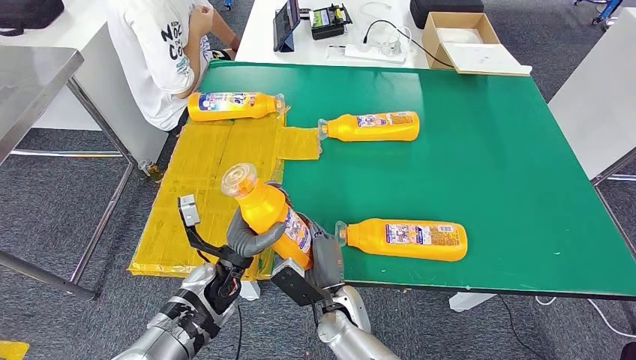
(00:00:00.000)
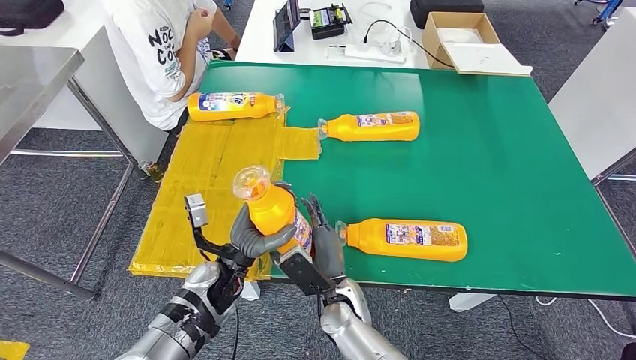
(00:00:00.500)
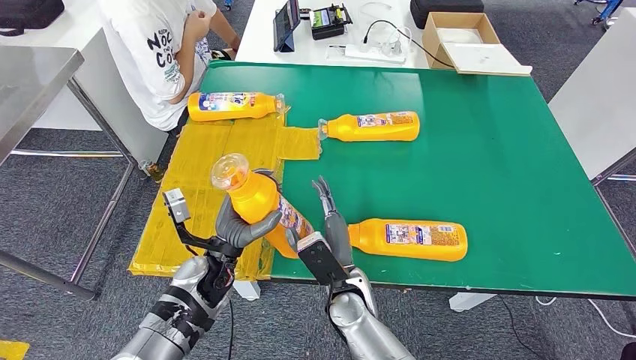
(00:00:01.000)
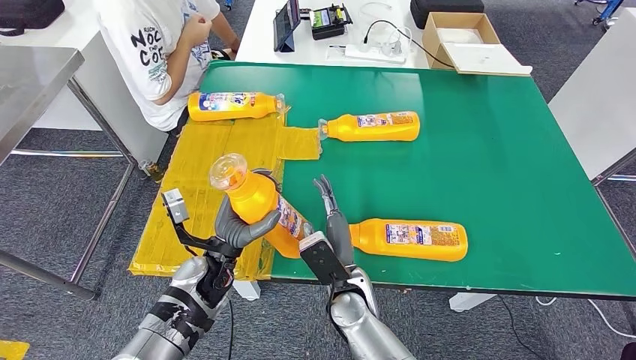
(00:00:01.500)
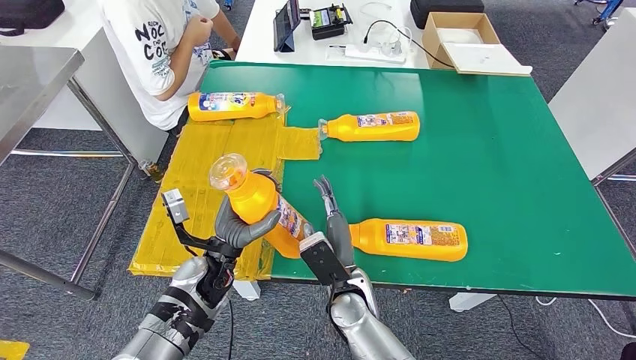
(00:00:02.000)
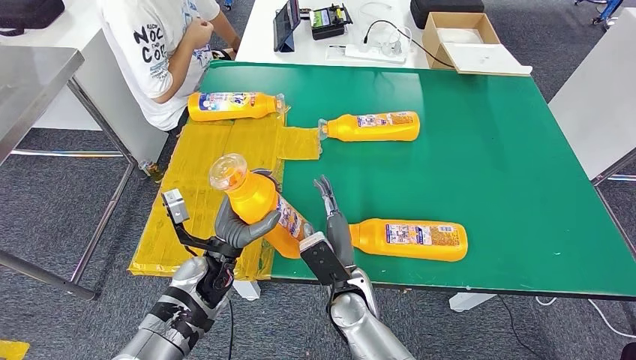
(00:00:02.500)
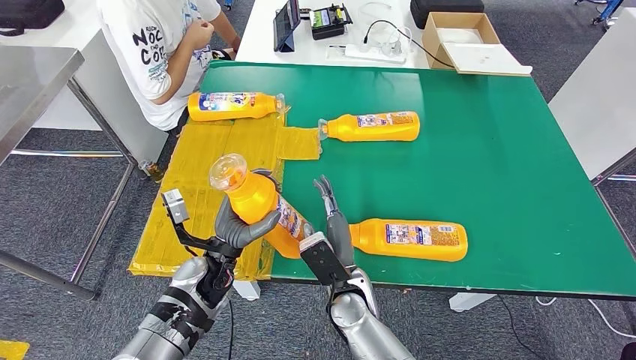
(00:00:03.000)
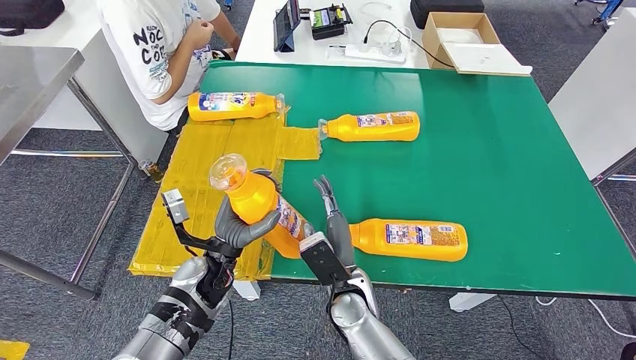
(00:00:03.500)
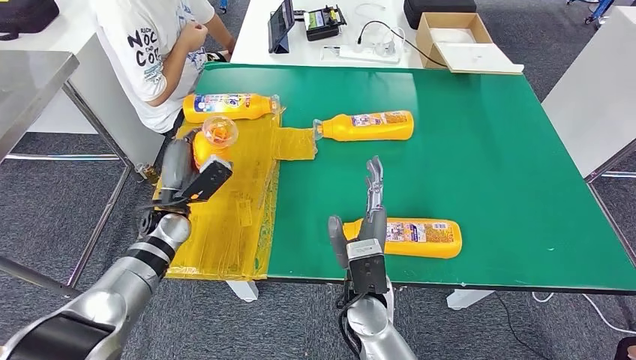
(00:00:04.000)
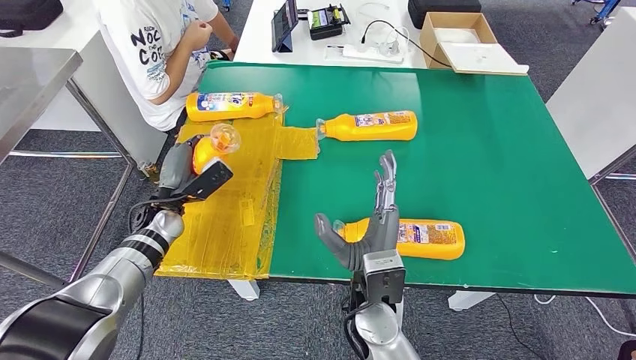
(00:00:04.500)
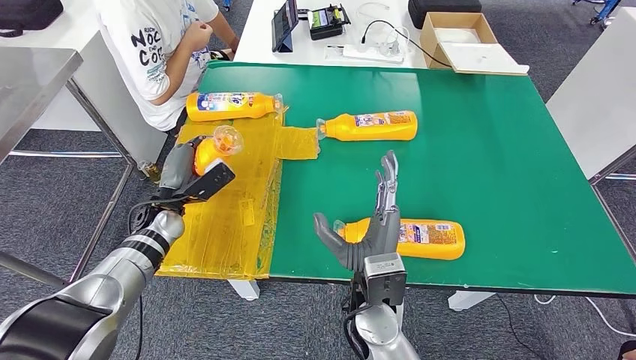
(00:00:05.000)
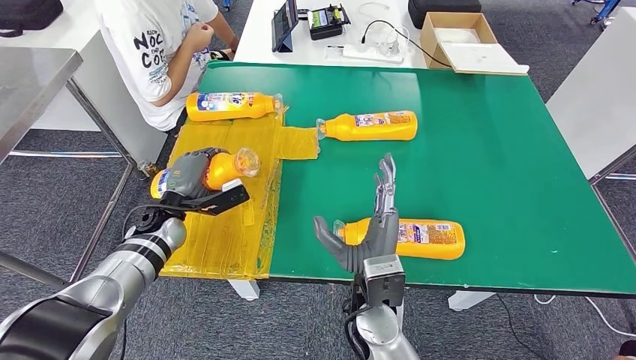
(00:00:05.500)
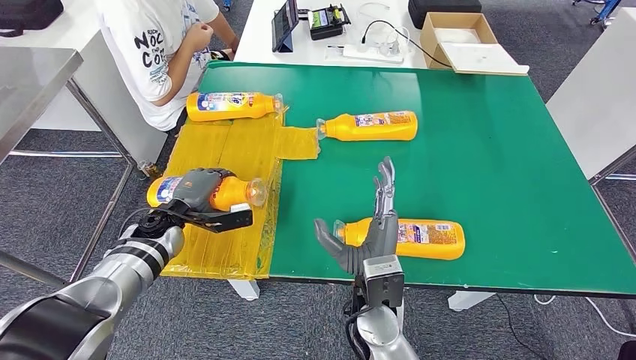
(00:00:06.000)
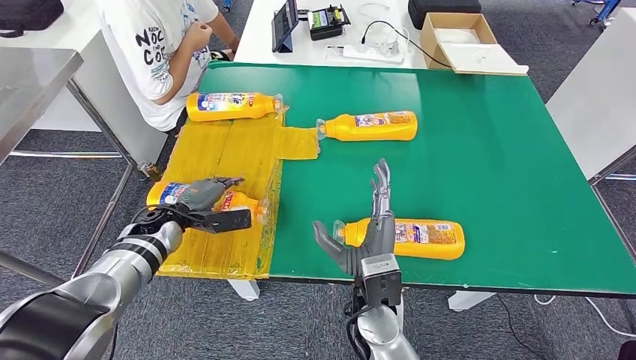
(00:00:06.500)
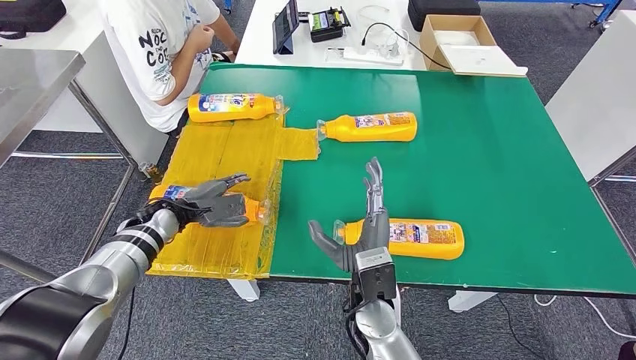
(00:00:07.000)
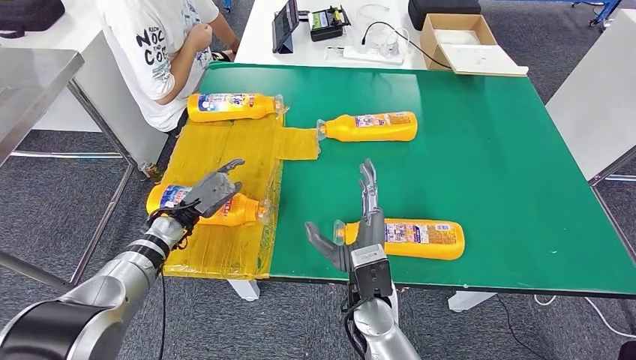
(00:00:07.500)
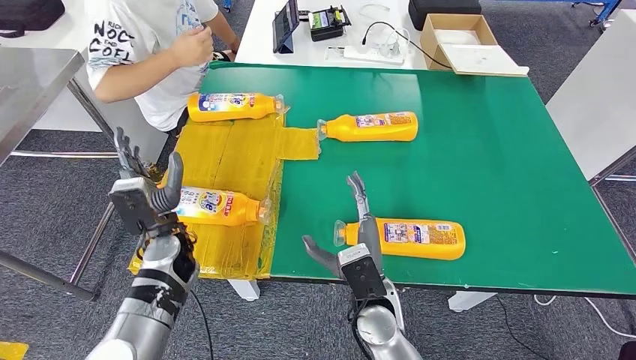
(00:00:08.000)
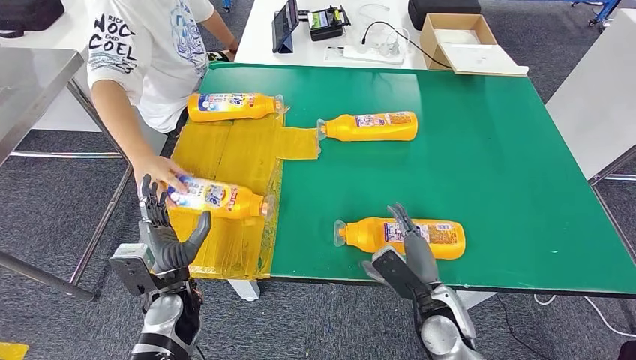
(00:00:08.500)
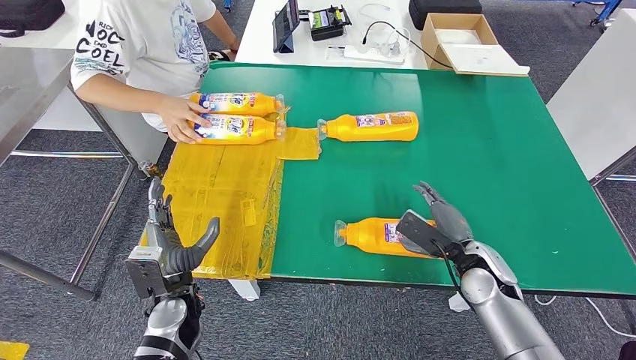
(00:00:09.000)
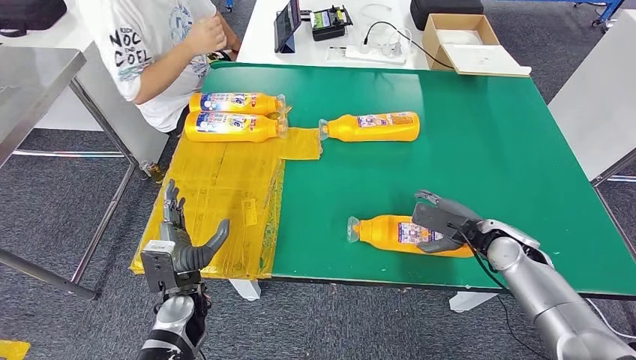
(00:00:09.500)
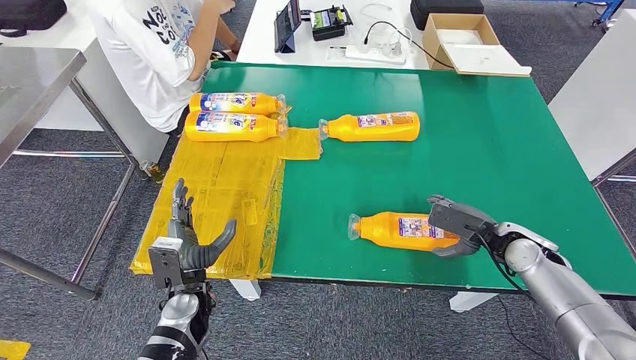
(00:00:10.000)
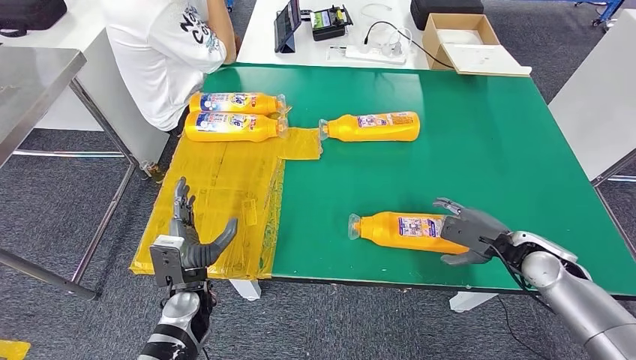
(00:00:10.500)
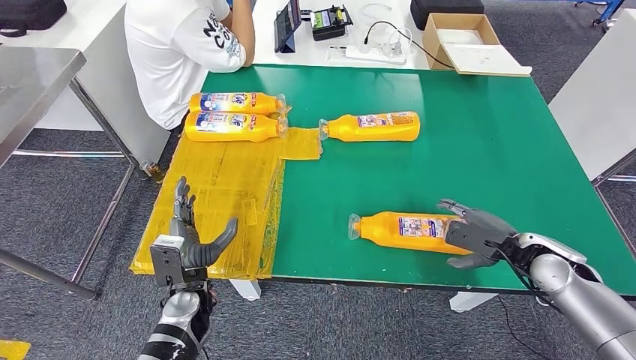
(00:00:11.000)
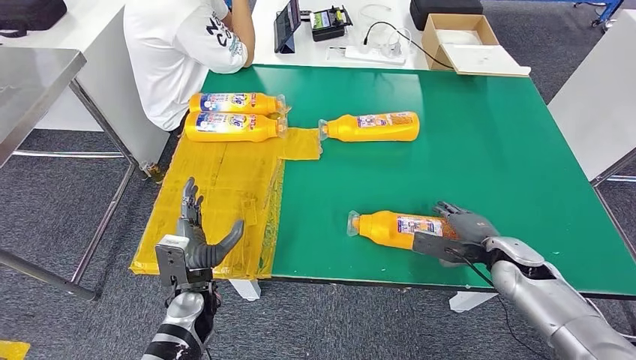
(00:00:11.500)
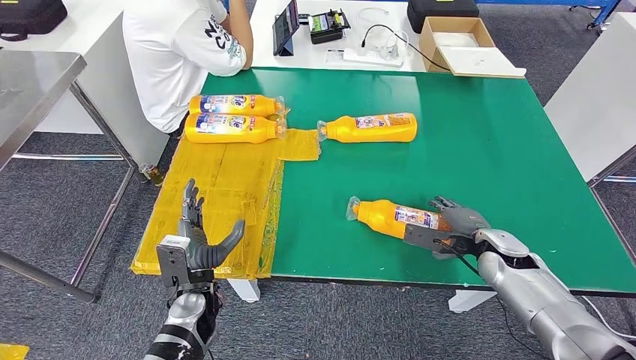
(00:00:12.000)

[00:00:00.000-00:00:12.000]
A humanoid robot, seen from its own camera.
Step, 00:00:00.000 to 00:00:07.500: Flip the fast-moving consumer goods bottle to the front side.
00:00:00.000 to 00:00:02.000: The right hand shifts by some 5 cm.
00:00:06.000 to 00:00:08.000: The left hand goes approximately 10 cm to the right and backward.

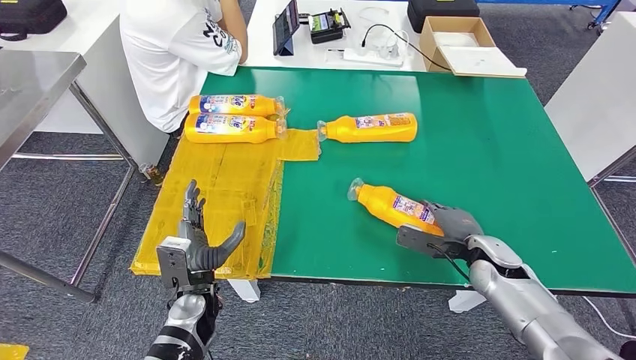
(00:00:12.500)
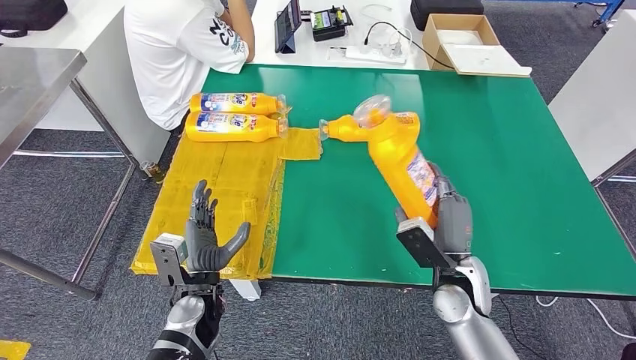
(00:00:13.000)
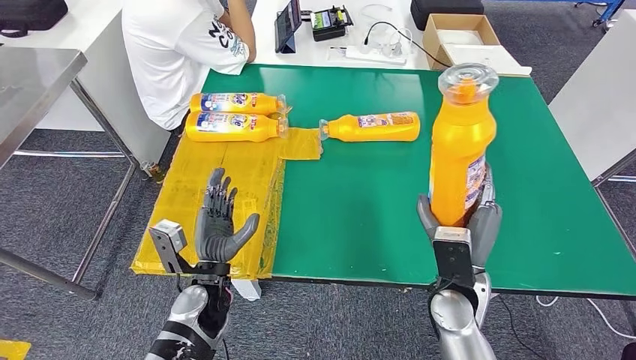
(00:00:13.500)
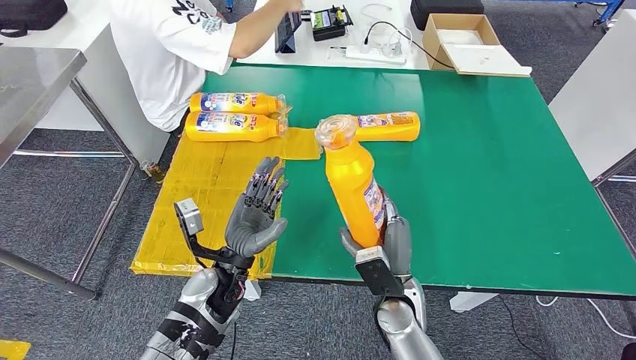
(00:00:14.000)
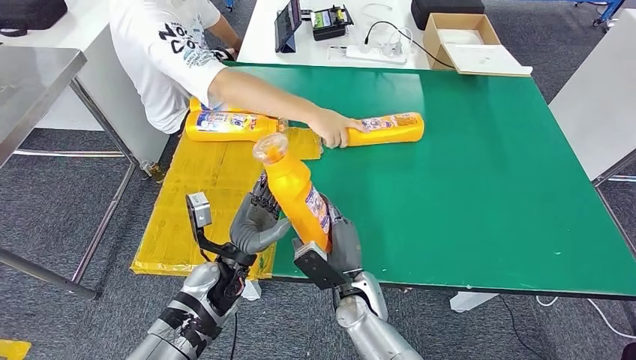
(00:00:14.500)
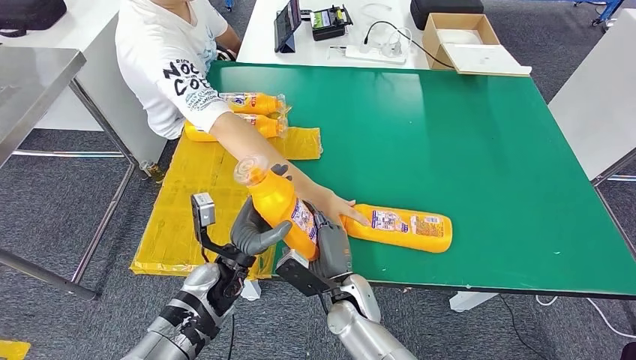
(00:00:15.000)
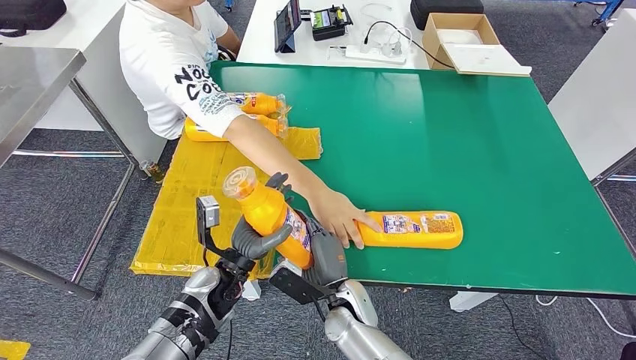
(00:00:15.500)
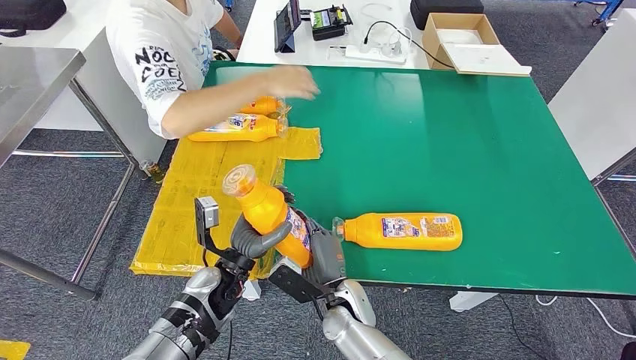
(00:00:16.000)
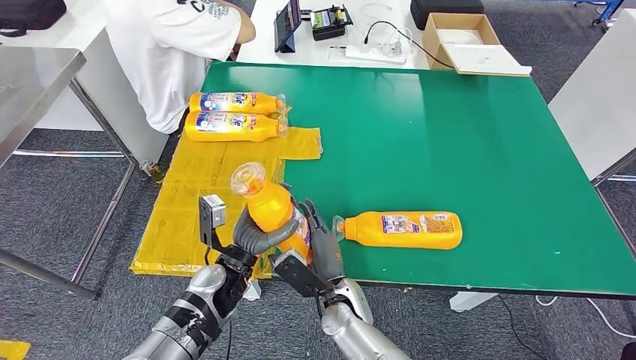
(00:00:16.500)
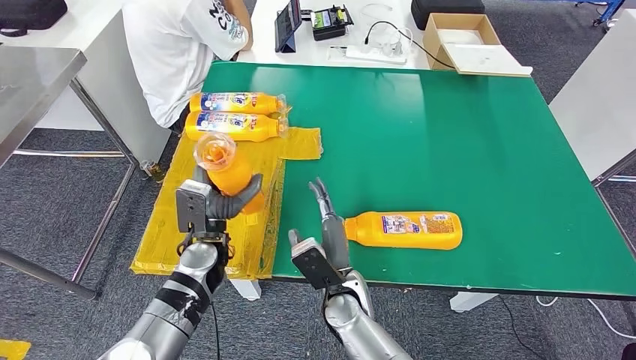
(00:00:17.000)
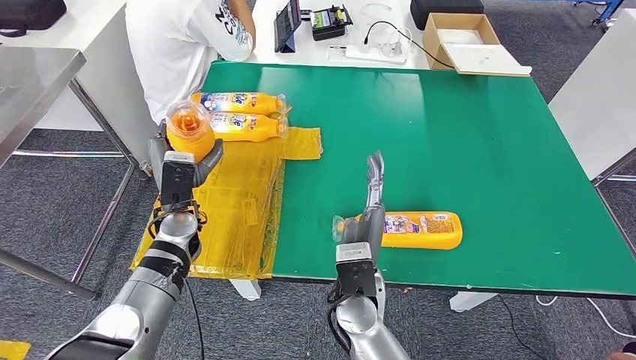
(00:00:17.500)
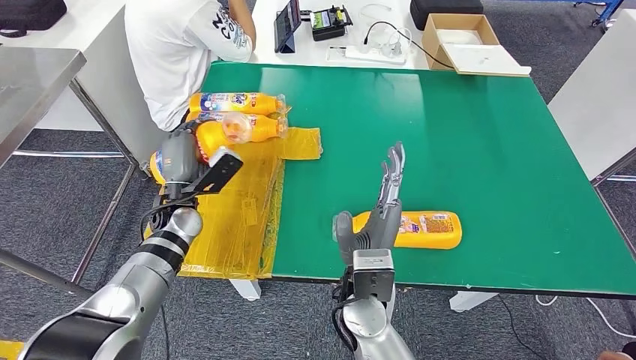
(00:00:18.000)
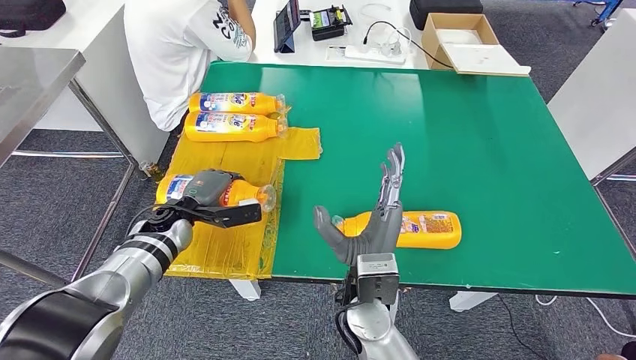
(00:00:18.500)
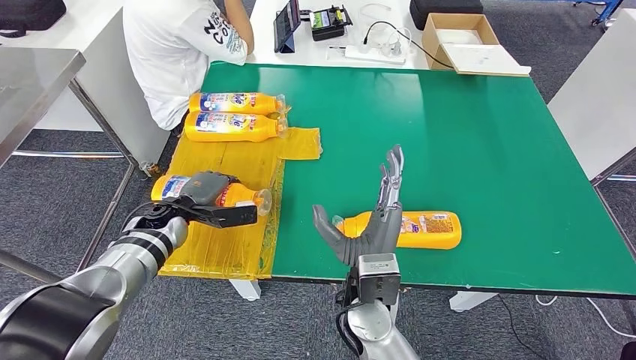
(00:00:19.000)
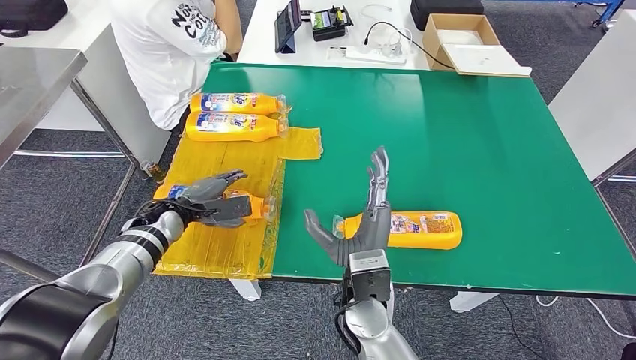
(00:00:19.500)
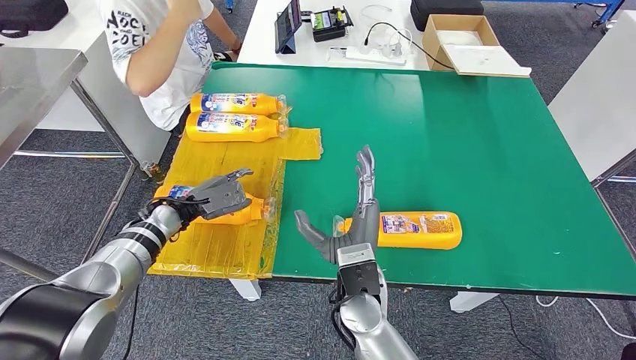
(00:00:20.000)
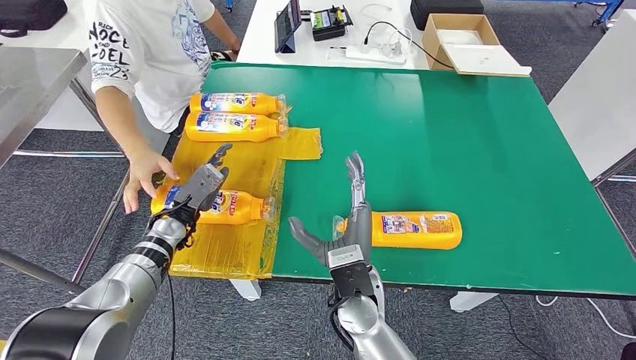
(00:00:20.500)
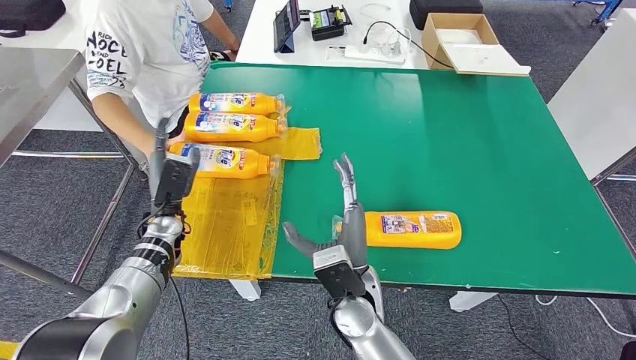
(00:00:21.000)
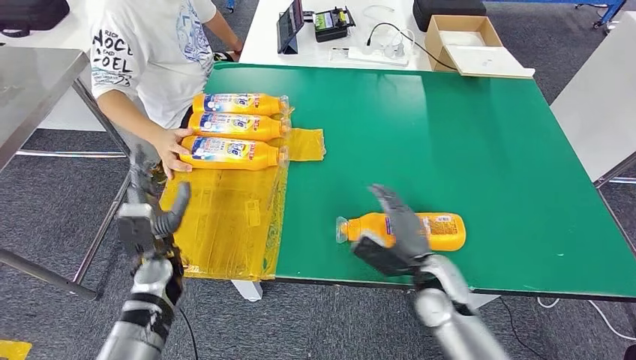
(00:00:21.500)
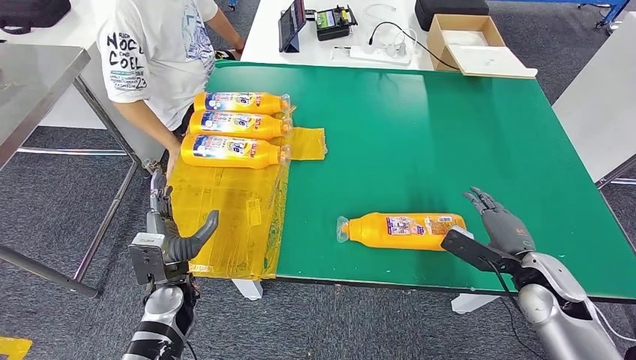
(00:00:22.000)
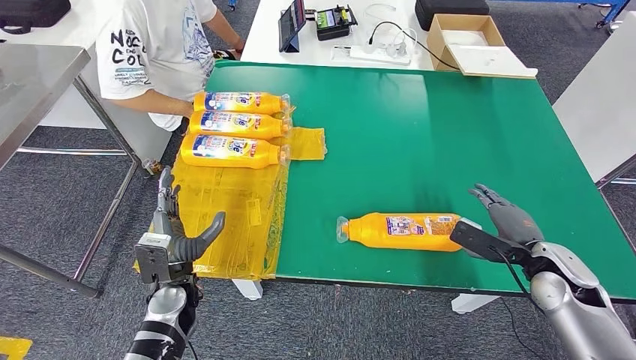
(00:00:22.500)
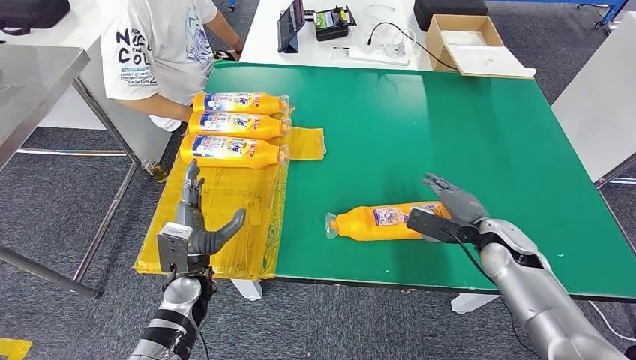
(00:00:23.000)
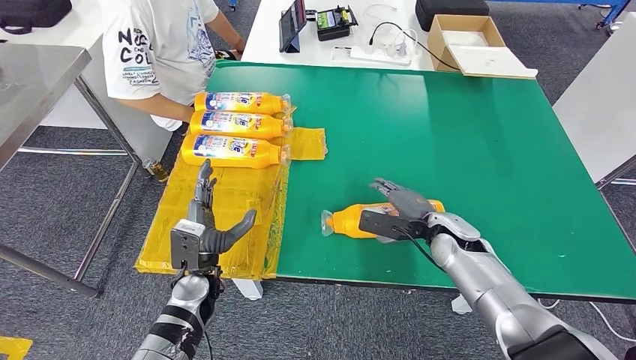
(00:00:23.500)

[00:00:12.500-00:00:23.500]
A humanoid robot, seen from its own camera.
Step, 00:00:14.000 to 00:00:20.500: Flip the fast-moving consumer goods bottle to the front side.
00:00:14.500 to 00:00:16.000: The hands stay close to where they were, moving slightly.
